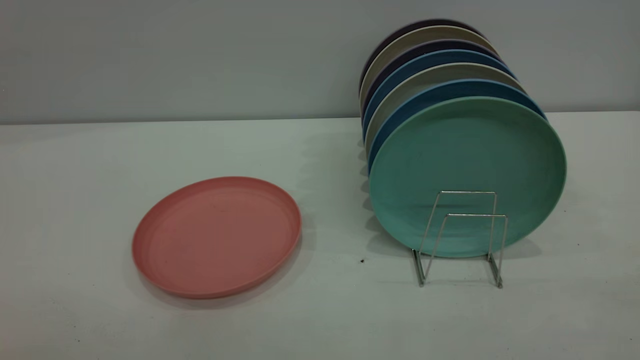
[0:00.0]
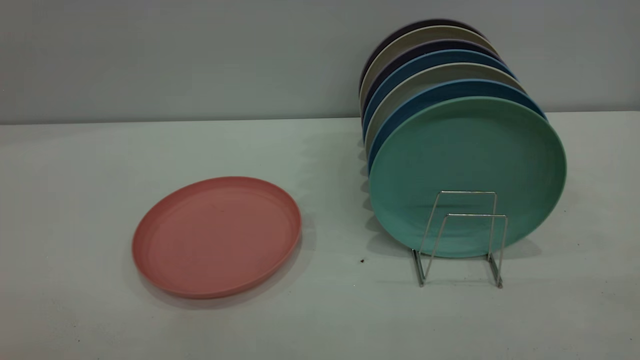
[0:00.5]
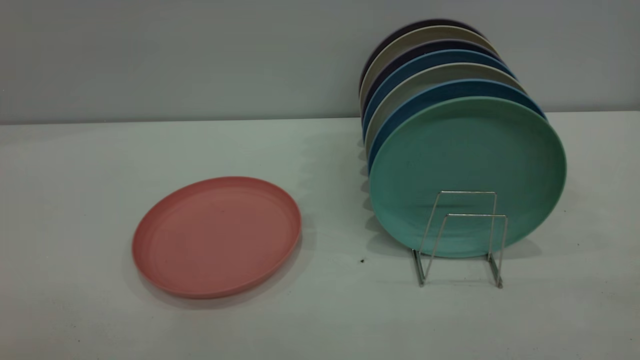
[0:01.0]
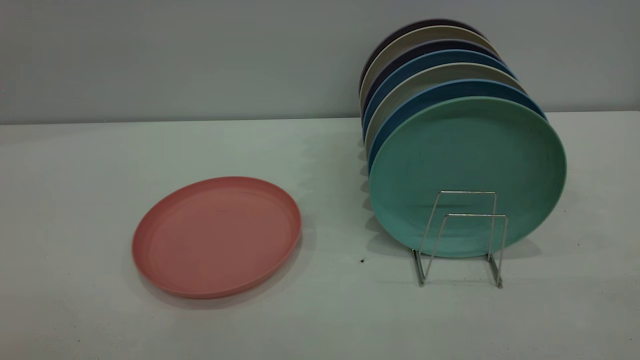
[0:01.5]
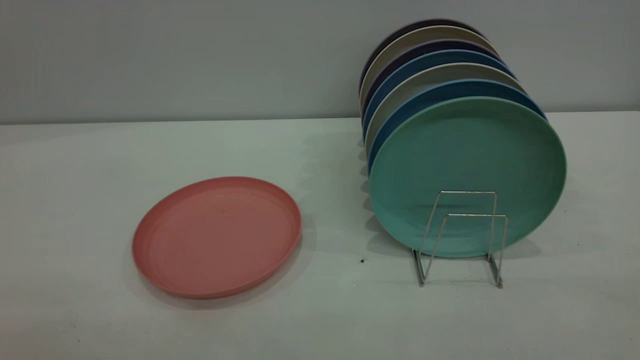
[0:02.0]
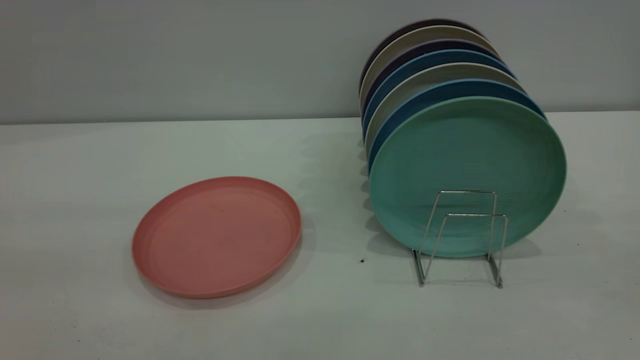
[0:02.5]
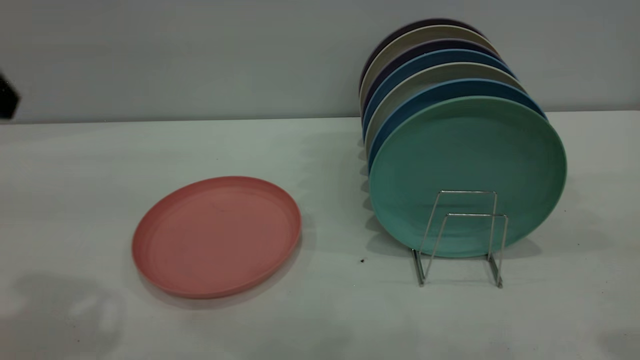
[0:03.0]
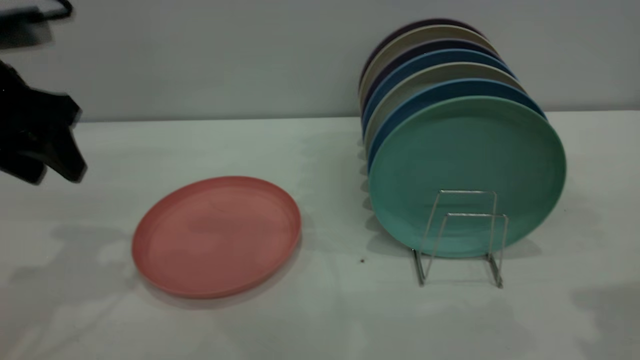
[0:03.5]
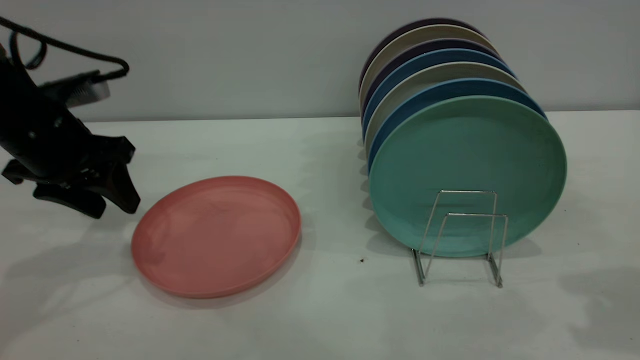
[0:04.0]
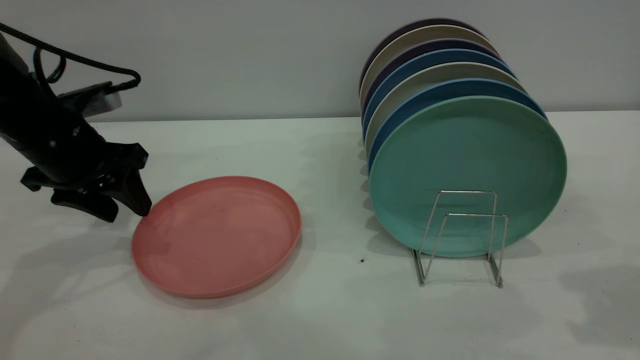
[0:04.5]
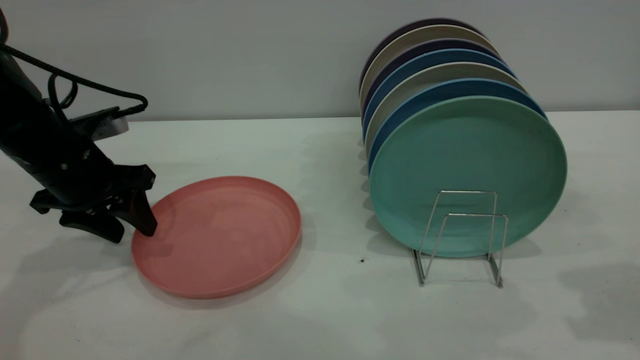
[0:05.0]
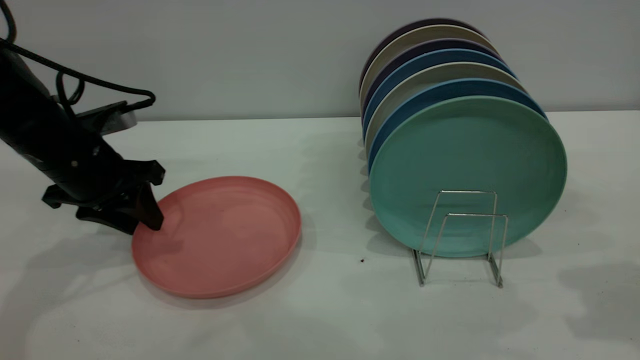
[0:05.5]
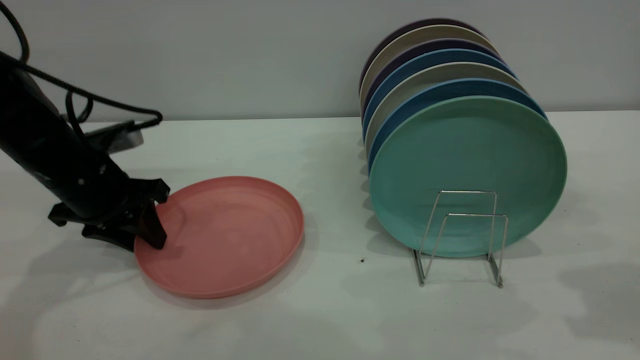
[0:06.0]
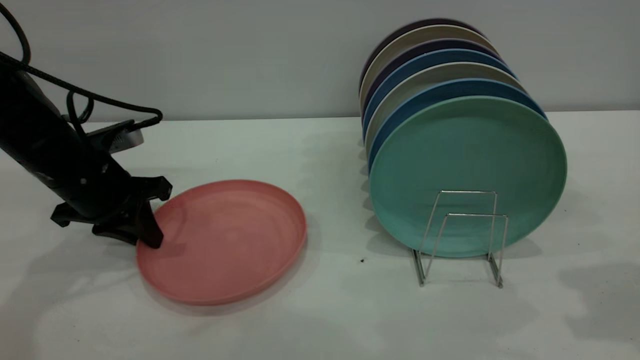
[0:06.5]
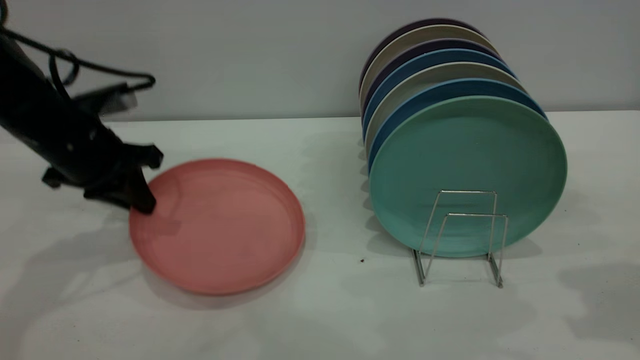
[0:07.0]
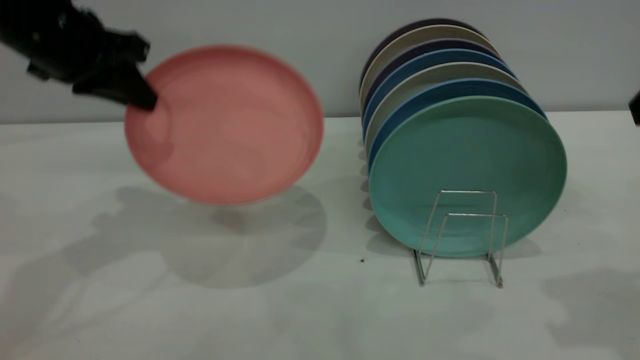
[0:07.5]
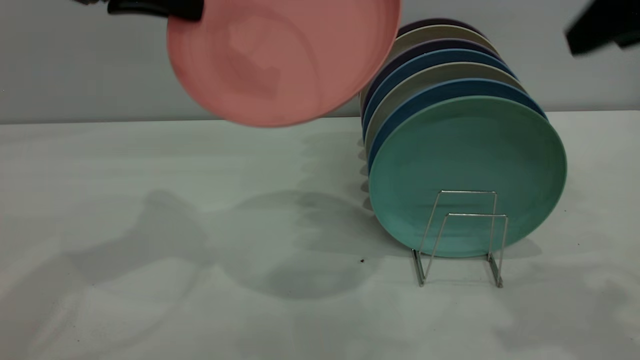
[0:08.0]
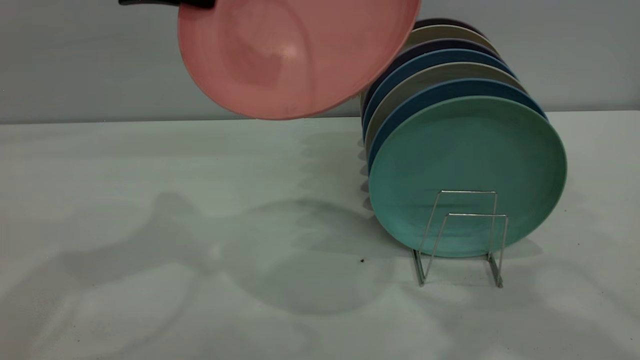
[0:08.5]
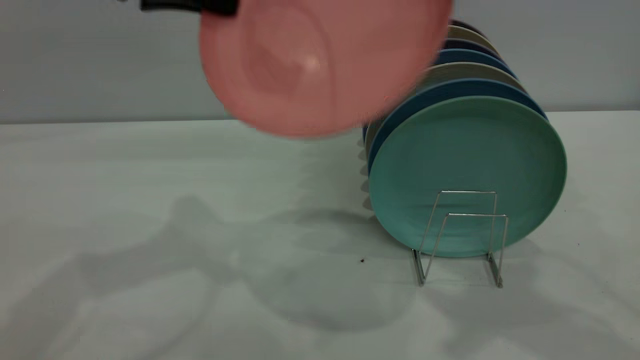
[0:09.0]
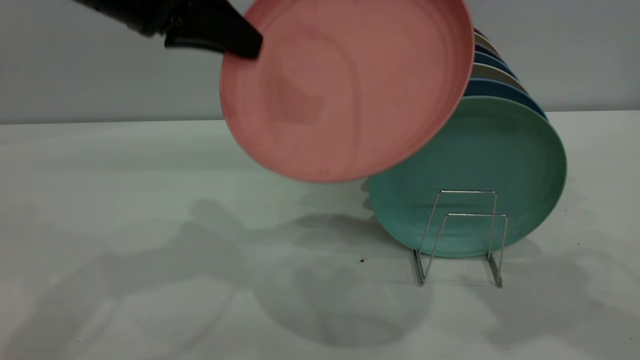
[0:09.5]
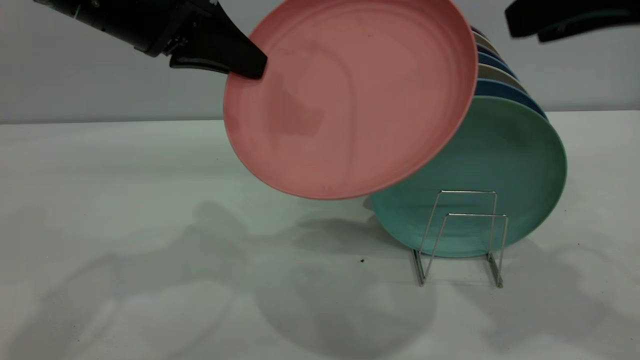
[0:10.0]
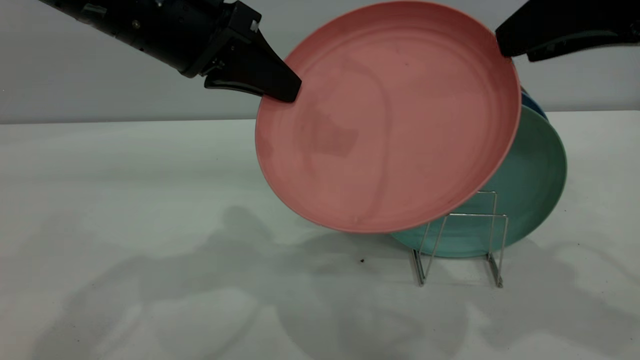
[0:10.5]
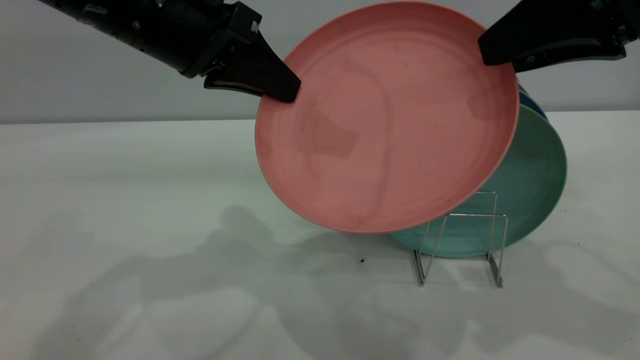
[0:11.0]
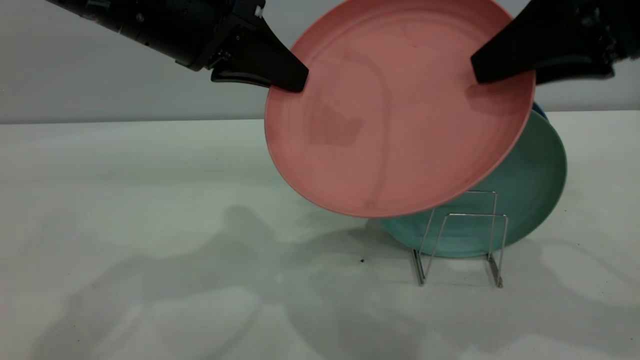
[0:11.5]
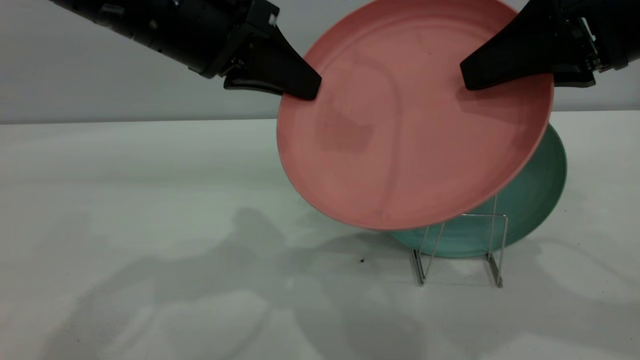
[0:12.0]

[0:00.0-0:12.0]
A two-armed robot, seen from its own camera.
Task of the whole recording: put the plate on the plate rack.
Step, 0:00.0 to 0:07.0: Pick up the plate with the left gripper.
0:02.0 to 0:04.0: The left gripper goes roughly 40 cm forward and downward.
0:04.0 to 0:06.0: The left gripper goes approximately 5 cm downward.
0:06.0 to 0:08.0: The left gripper travels upward by about 20 cm, and closes up. The right gripper heads upward and to the left, covering approximately 10 cm.
0:08.0 to 0:10.0: The left gripper ends up some 5 cm from where it was.
0:10.0 to 0:12.0: The right gripper closes up.

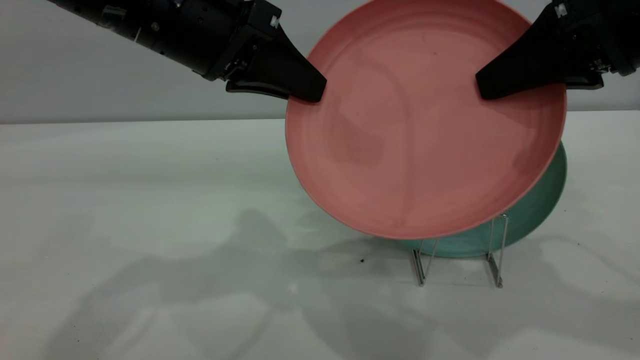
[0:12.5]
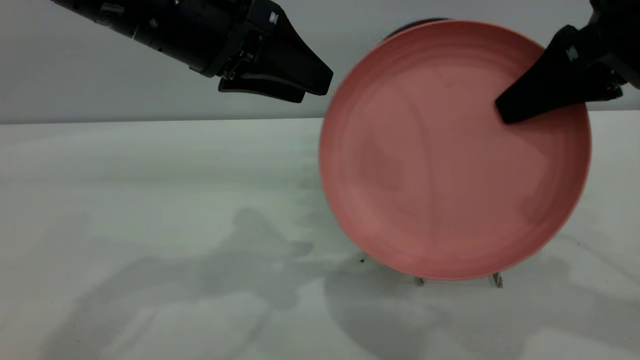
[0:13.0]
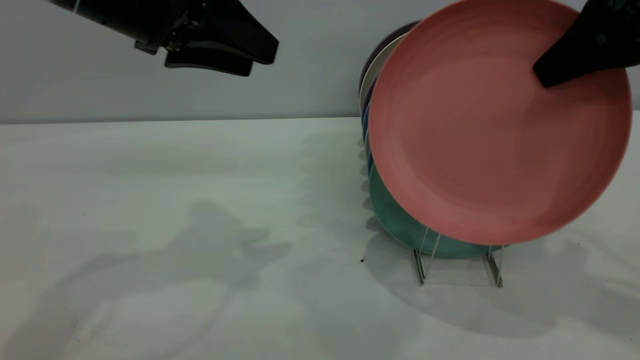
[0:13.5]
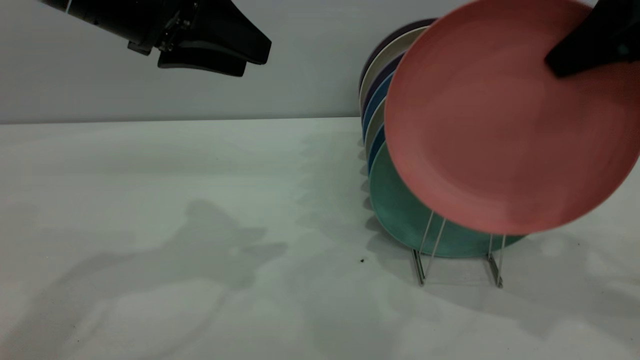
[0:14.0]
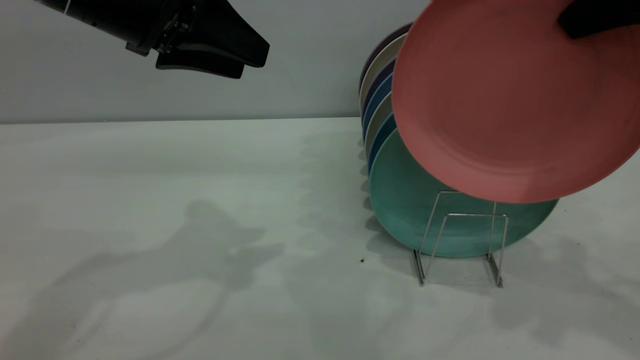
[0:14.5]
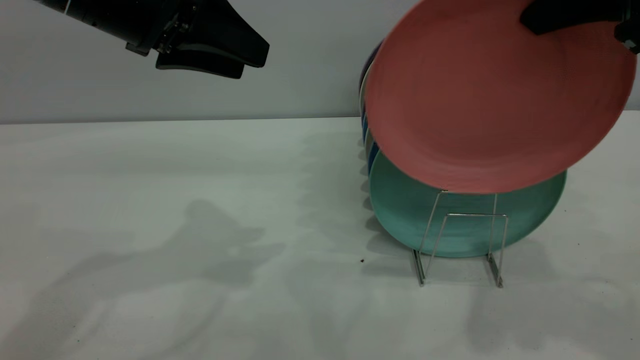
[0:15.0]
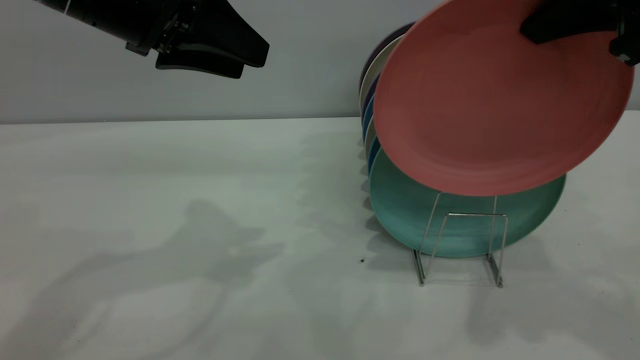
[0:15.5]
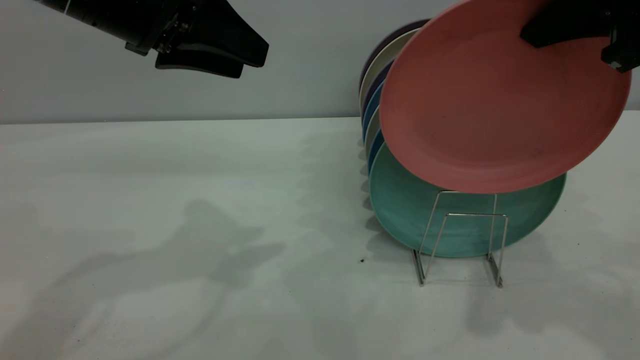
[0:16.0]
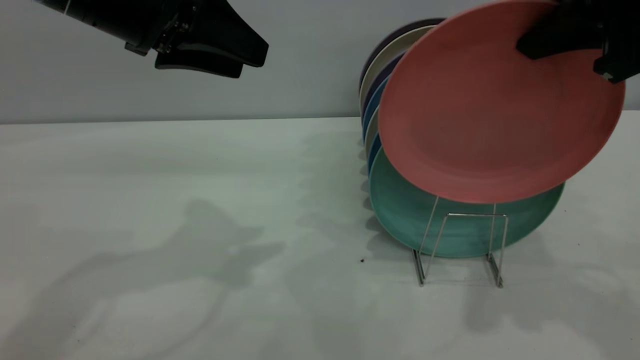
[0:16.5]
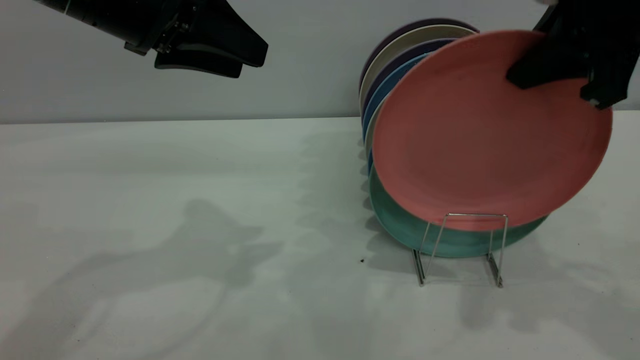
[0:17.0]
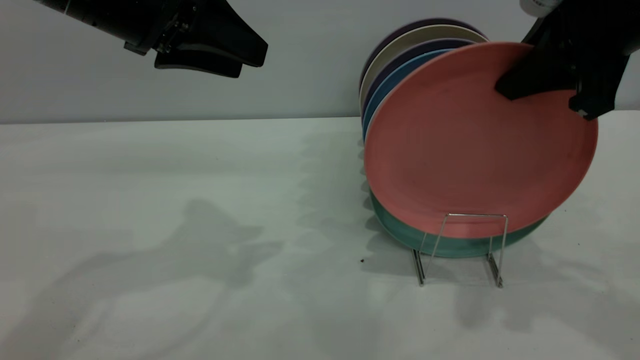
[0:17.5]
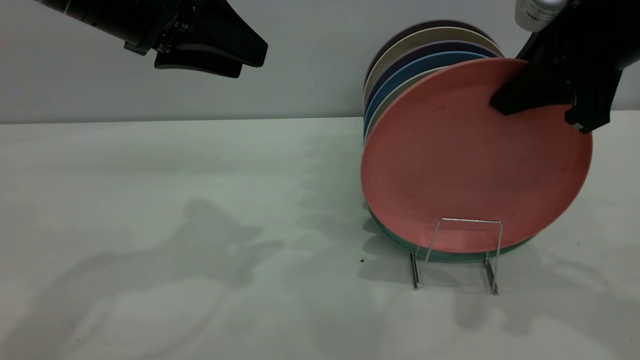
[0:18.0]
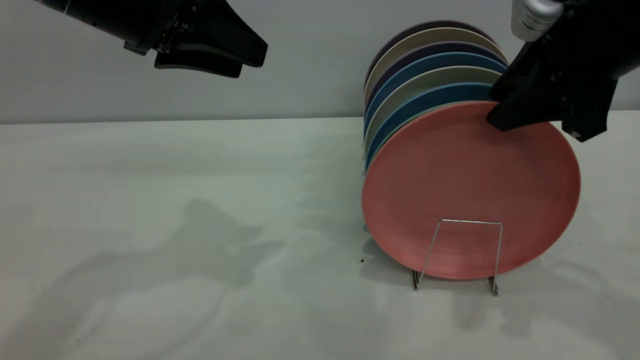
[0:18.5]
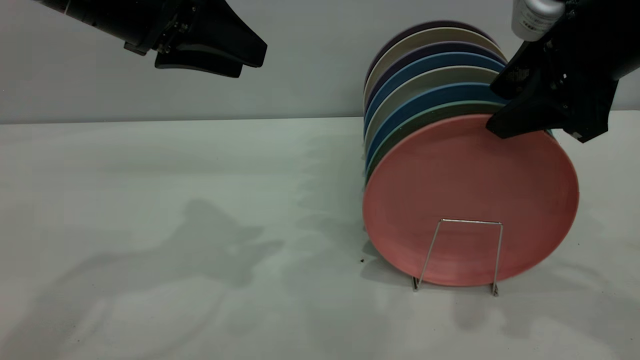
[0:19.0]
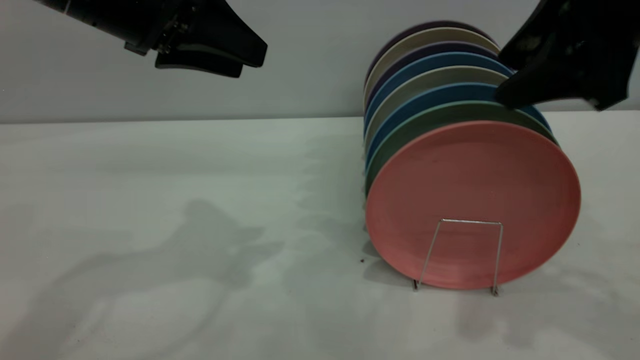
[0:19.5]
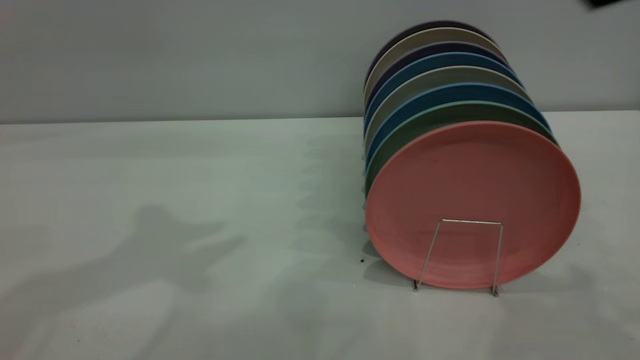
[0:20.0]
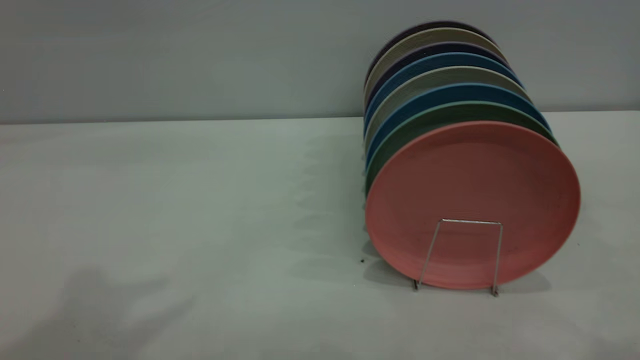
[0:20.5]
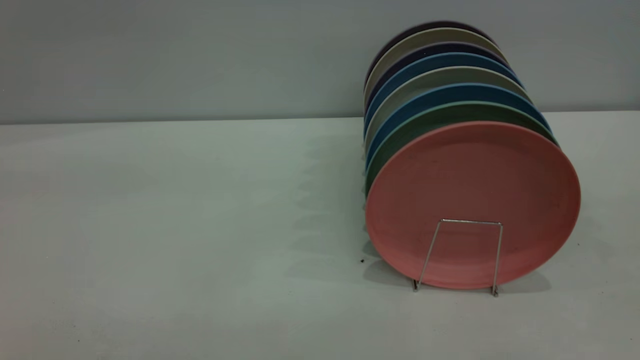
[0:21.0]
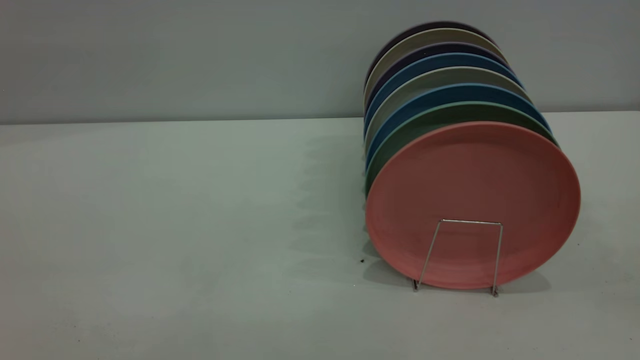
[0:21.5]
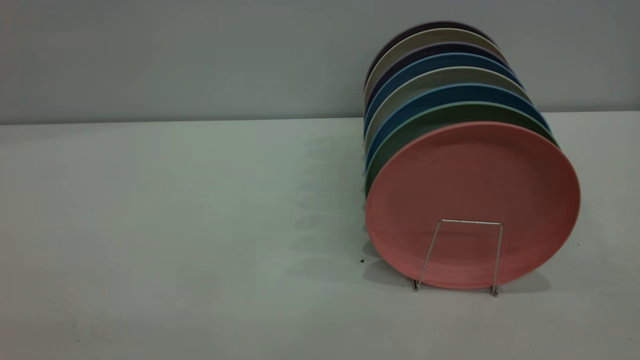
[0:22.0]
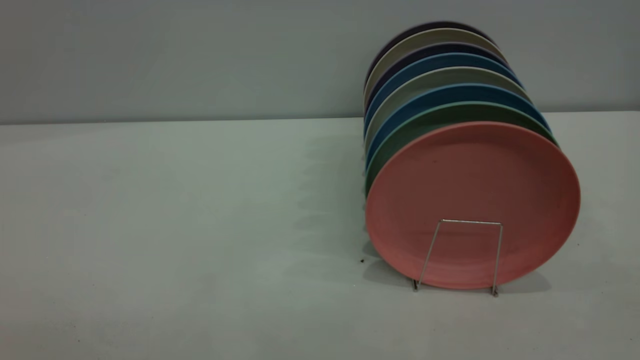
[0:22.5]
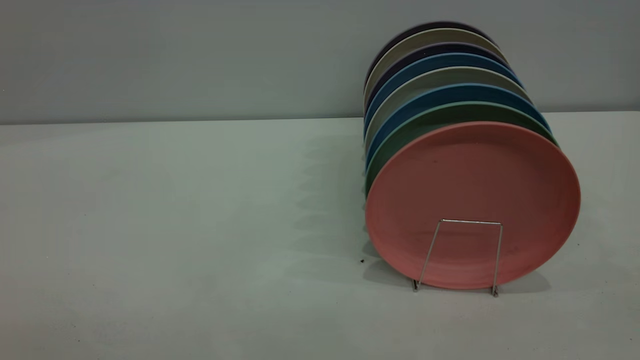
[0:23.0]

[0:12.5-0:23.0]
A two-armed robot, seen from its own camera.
Task of the whole recording: put the plate on the plate rack.
Step, 0:13.0 to 0:19.5: Place the plate on the shelf.
0:12.5 to 0:14.5: The left gripper goes roughly 5 cm to the left, and opens its fingers. The right gripper goes roughly 5 cm upward.
0:14.5 to 0:16.5: The grippers move only a little.
0:16.5 to 0:19.0: The right gripper opens.
0:19.0 to 0:21.0: The right gripper travels backward and upward by some 25 cm; the left gripper goes some 30 cm upward and backward.
